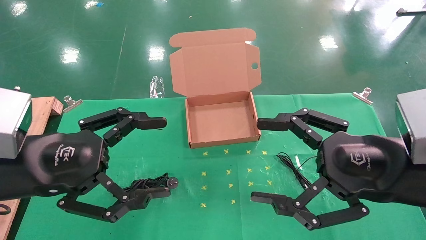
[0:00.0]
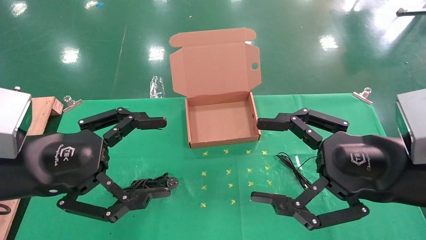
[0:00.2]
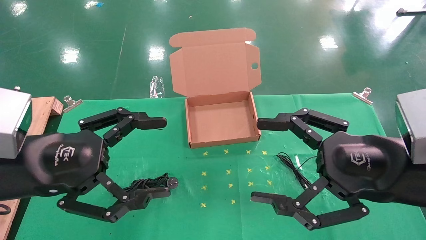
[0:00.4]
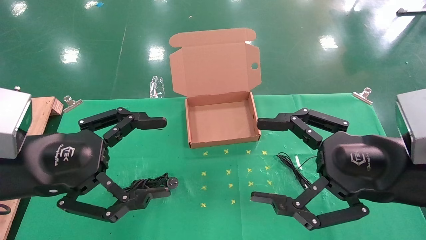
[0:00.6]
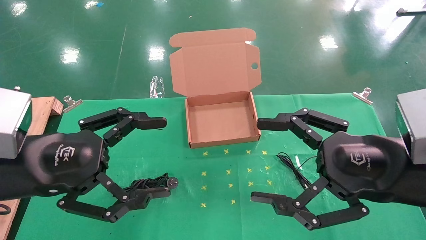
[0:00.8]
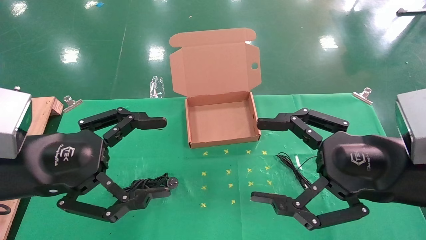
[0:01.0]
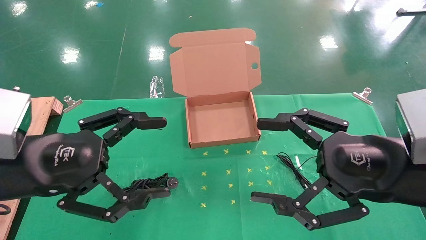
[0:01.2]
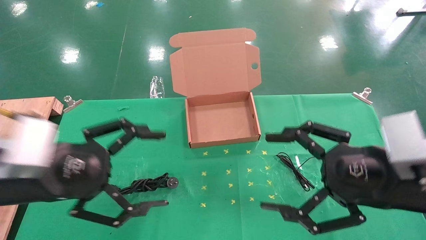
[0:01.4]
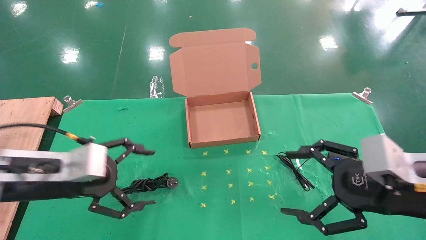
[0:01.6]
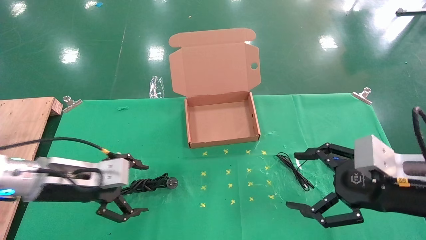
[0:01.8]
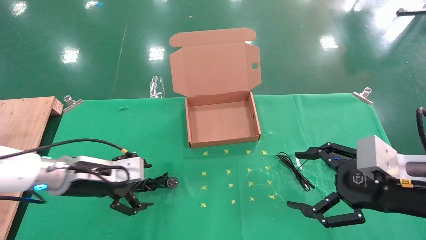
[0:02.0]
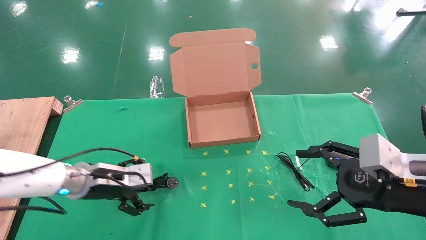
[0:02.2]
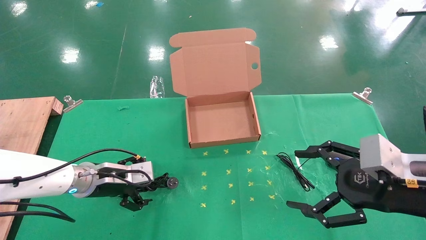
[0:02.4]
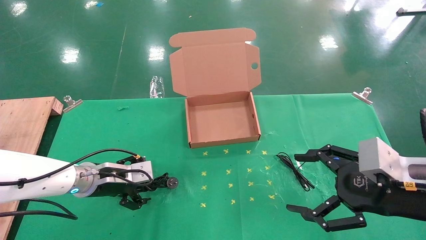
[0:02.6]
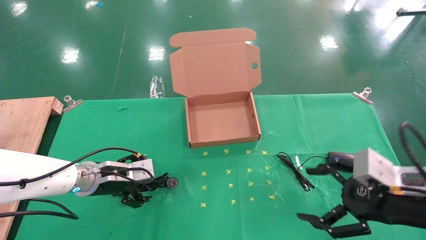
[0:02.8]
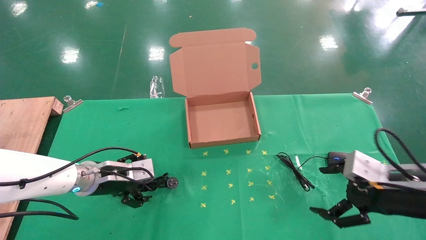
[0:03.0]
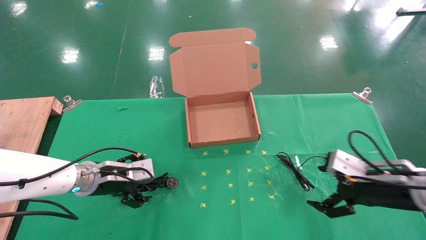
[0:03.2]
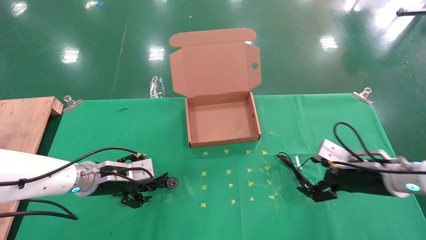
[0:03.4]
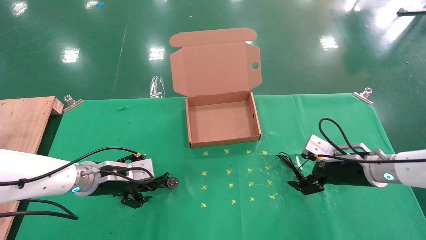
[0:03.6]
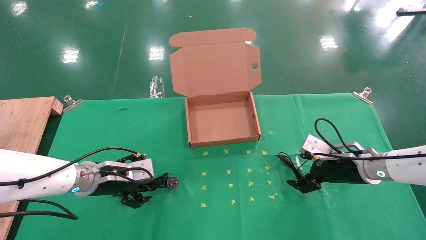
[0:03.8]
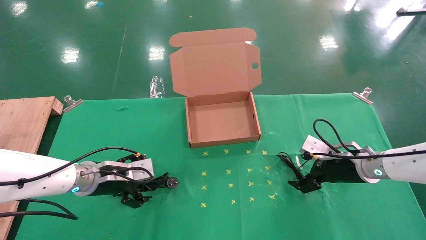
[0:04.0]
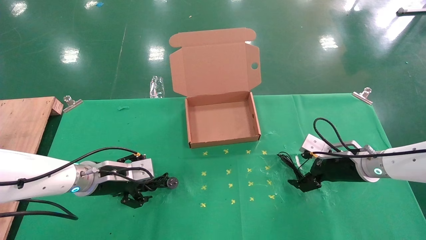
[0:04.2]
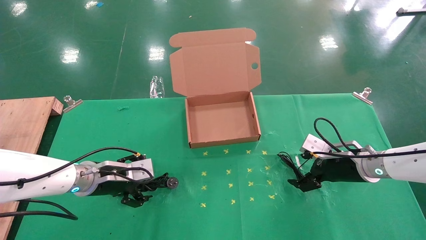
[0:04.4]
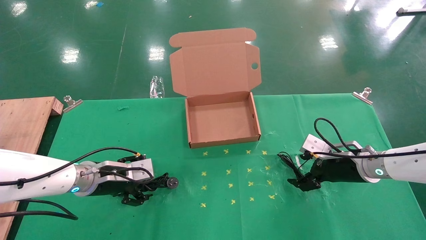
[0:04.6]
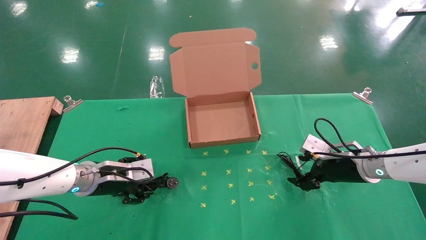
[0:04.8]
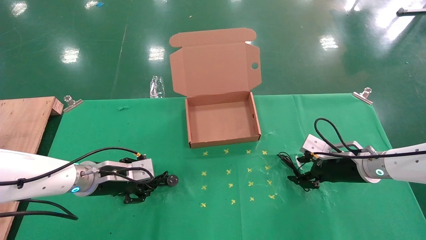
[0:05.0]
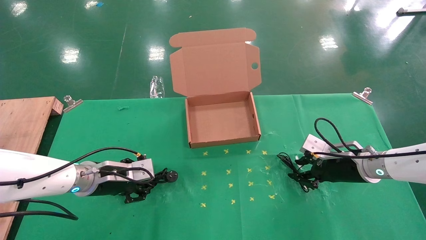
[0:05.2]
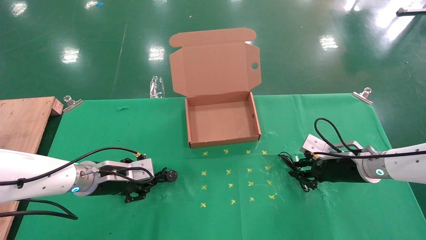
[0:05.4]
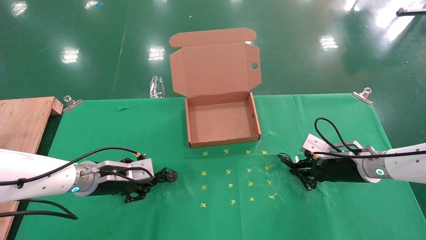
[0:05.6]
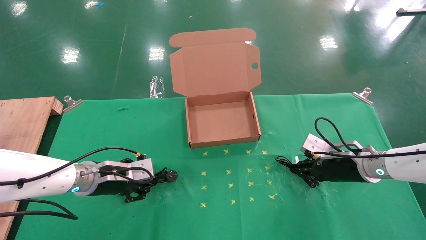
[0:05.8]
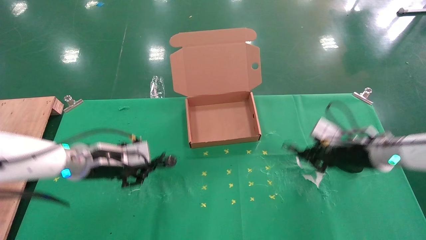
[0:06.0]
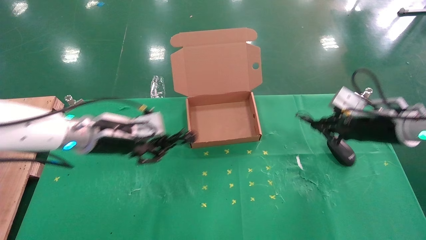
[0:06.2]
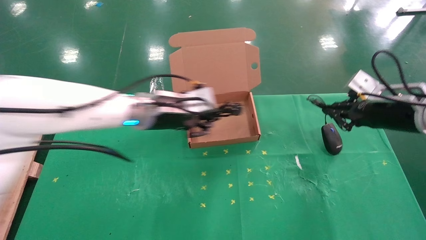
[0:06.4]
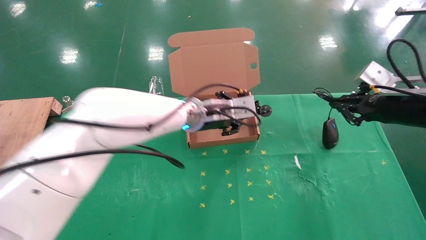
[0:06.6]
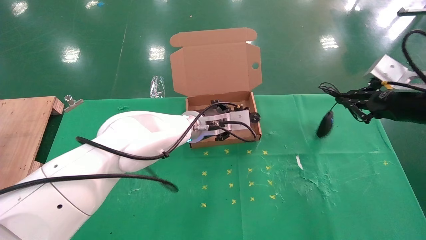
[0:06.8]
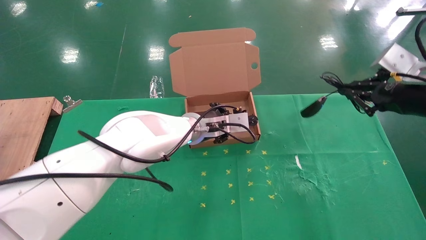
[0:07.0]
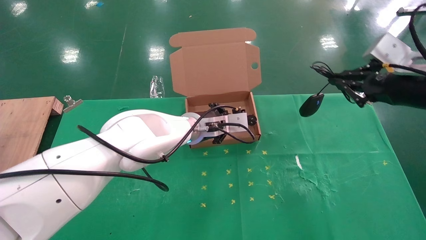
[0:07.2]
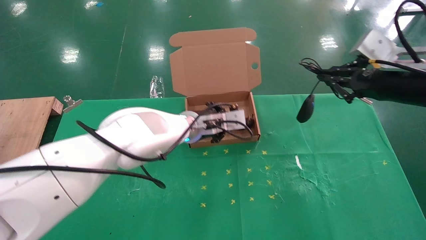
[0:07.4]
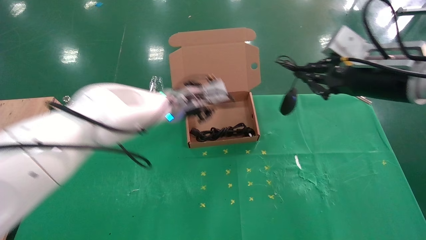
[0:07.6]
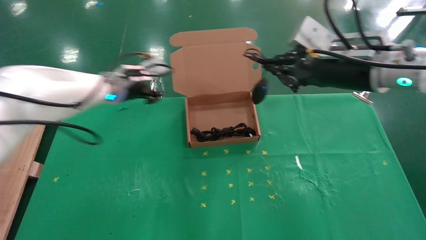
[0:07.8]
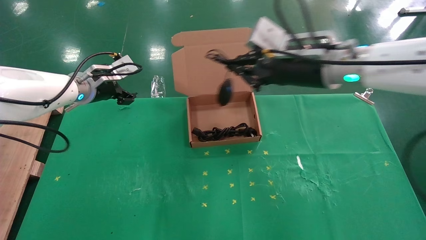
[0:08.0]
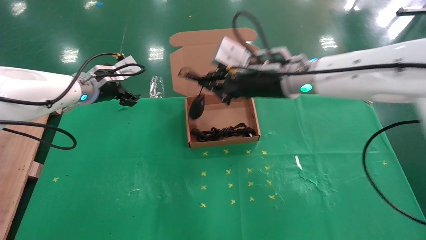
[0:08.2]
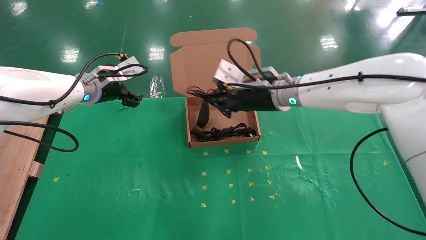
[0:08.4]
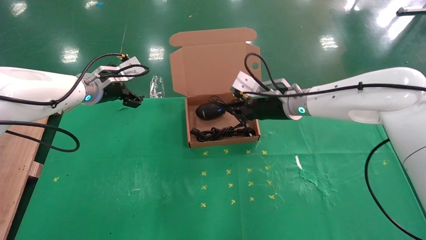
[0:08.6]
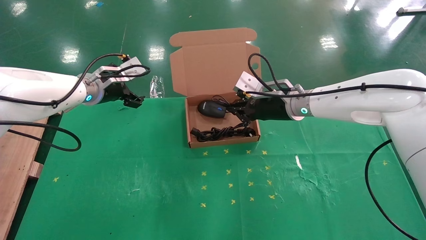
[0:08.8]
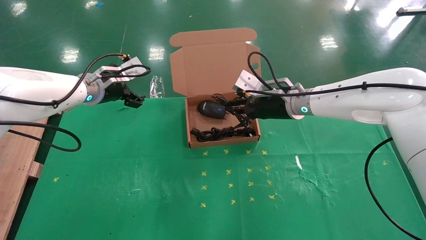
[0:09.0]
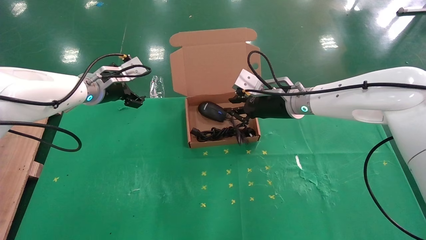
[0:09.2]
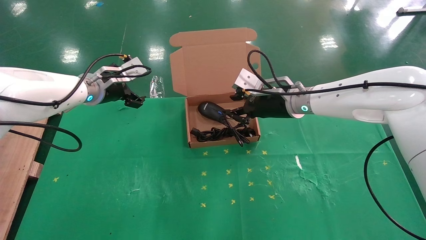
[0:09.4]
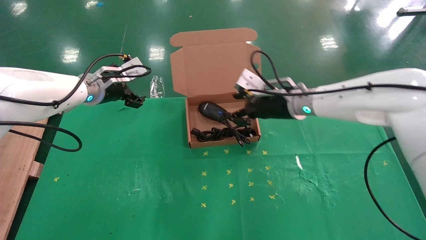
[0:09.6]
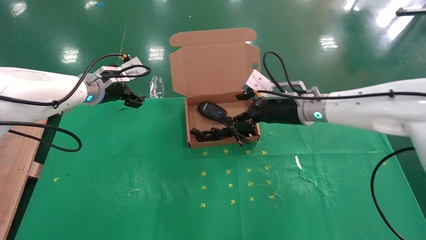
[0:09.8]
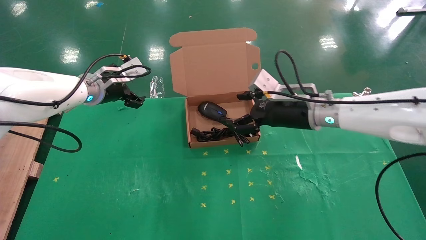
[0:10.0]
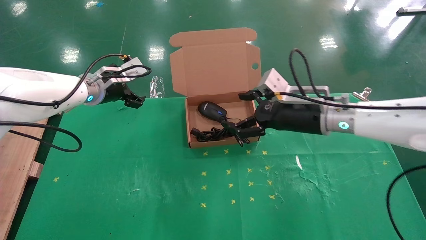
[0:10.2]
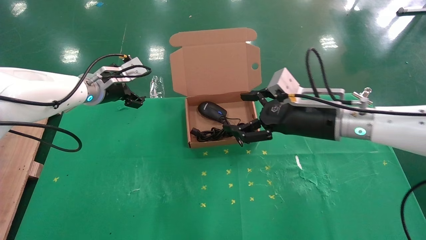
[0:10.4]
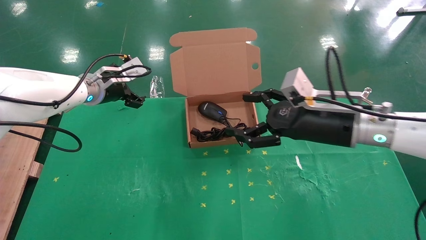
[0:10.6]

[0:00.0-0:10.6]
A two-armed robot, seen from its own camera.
Task of the whole recording: grasp data cable left put into box grasp mouse right put into box.
Step, 0:01.4 to 0:05.8: Simultaneously pick up the mouse and power cord from the accessory packaging area.
Step, 0:06.0 to 0:09.4: Place the mouse and power cord into the box.
0:00.0 to 0:01.6: The right gripper ends up some 5 cm from where it was. Meanwhile the left gripper goes approximately 10 cm downward and forward.
0:01.6 to 0:03.0: The left gripper shifts some 15 cm forward and downward, while the right gripper heads downward and forward, covering some 10 cm.
0:03.0 to 0:04.6: The right gripper travels forward by some 15 cm.
0:04.6 to 0:06.0: The two grippers go about 5 cm upward. The right gripper closes up. The left gripper closes its fingers.
0:06.0 to 0:07.6: The left gripper is displaced to the right, forward and upward by approximately 15 cm; the right gripper goes some 15 cm upward.
0:07.6 to 0:09.0: The left gripper heads to the left, covering roughly 15 cm, and opens its fingers, while the right gripper travels to the left, forward and downward by about 20 cm.
0:09.0 to 0:10.6: The right gripper goes some 15 cm backward and to the right, and opens up.

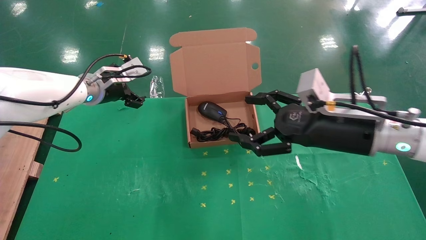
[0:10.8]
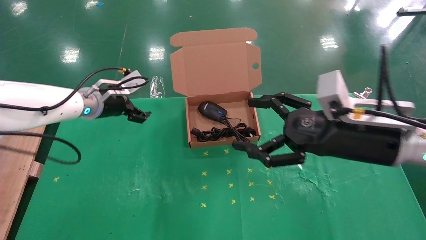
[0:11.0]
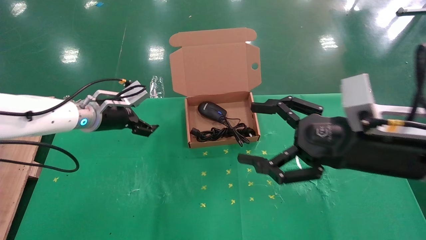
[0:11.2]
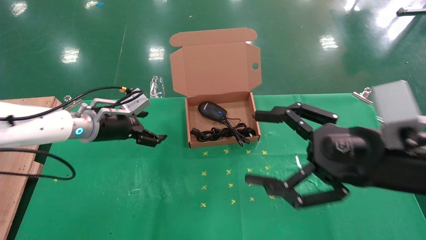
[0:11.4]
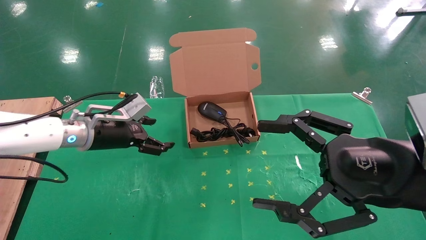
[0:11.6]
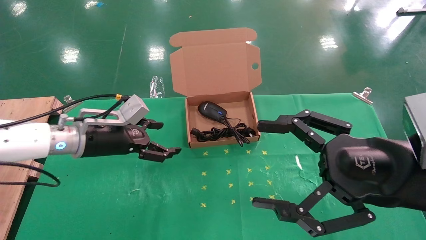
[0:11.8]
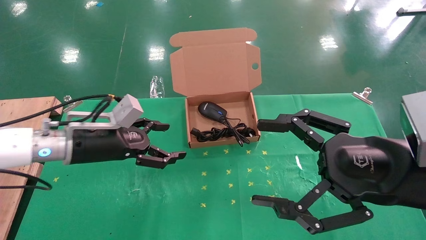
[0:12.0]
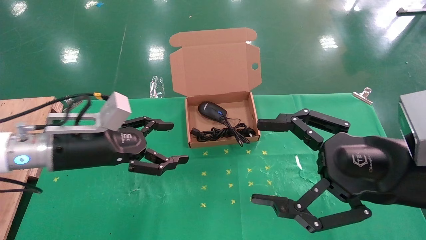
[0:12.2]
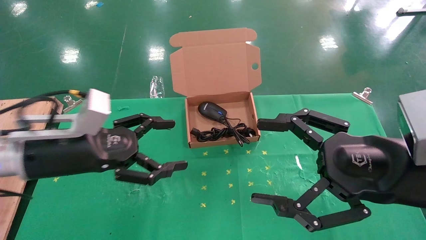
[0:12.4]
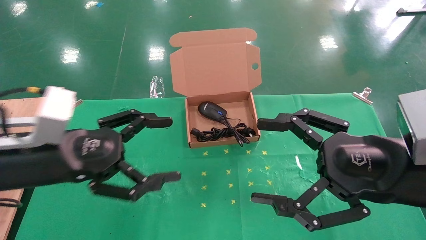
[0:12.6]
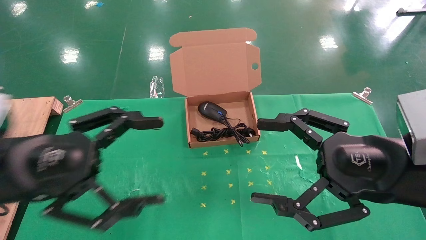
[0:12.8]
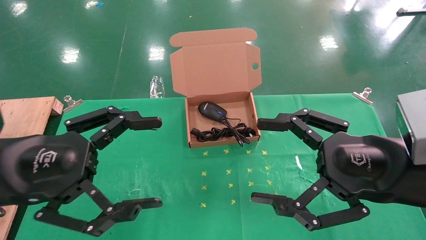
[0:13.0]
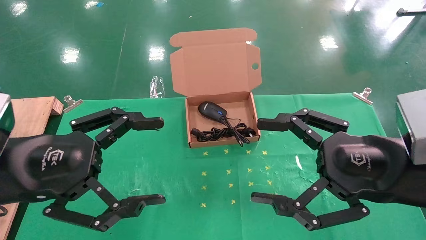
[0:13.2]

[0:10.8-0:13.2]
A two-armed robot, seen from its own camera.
Task of the whole recording: grasp data cable left put into box grasp mouse right put into box.
0:10.8 to 0:12.0: Both grippers move backward, roughly 10 cm.
0:12.0 to 0:13.2: The left gripper heads backward, covering about 15 cm.
